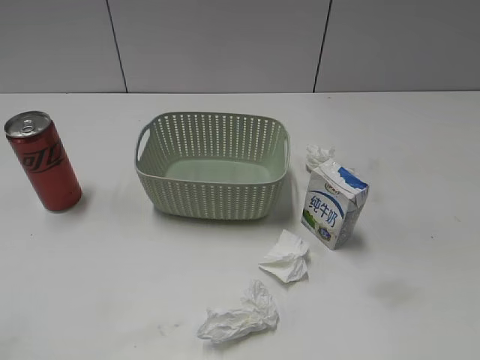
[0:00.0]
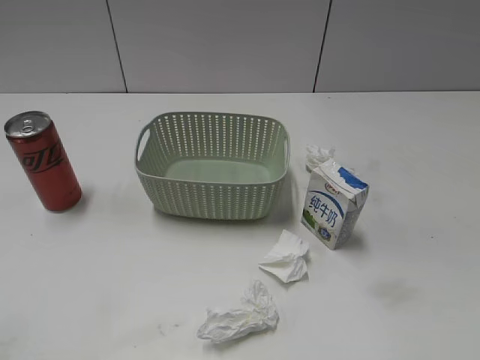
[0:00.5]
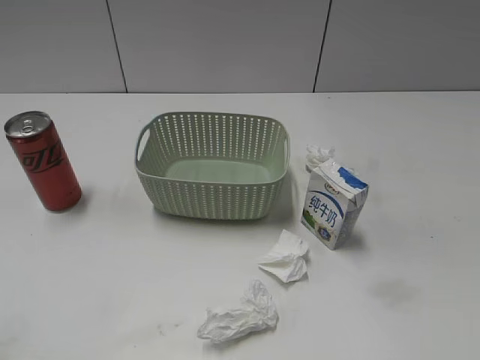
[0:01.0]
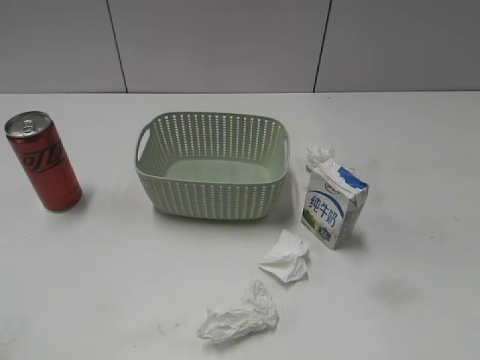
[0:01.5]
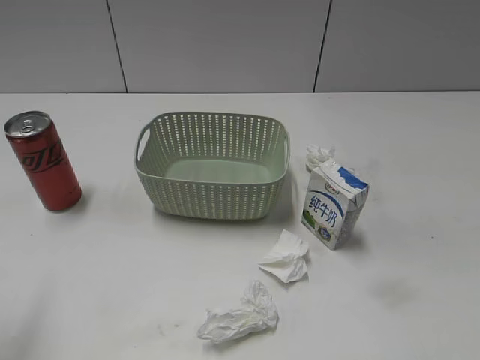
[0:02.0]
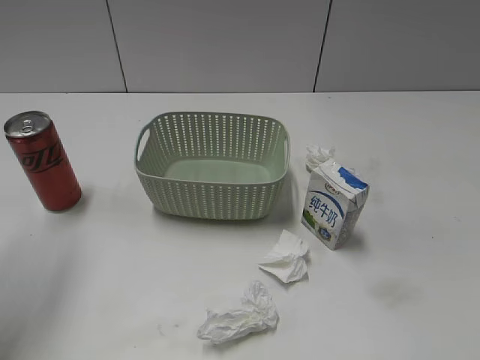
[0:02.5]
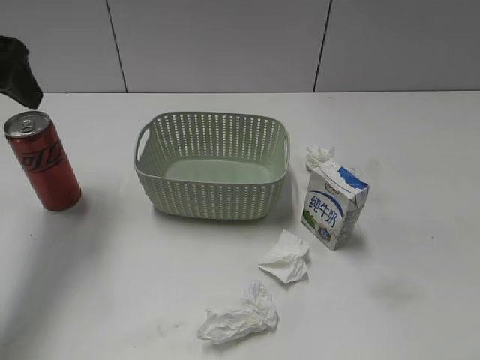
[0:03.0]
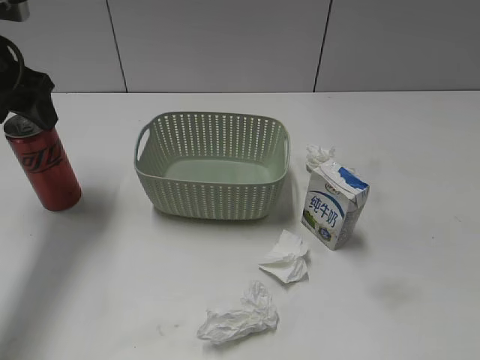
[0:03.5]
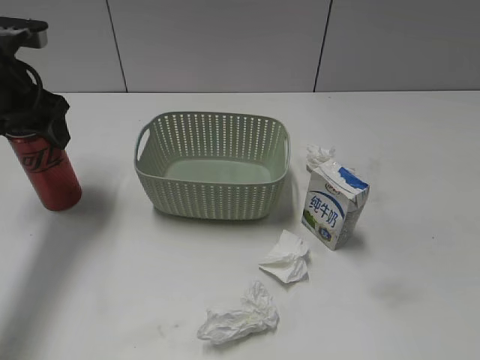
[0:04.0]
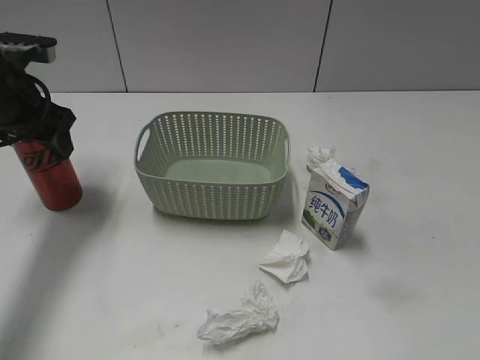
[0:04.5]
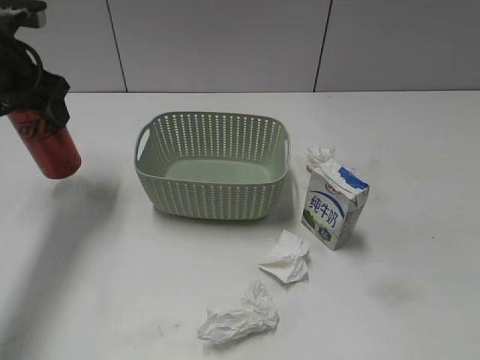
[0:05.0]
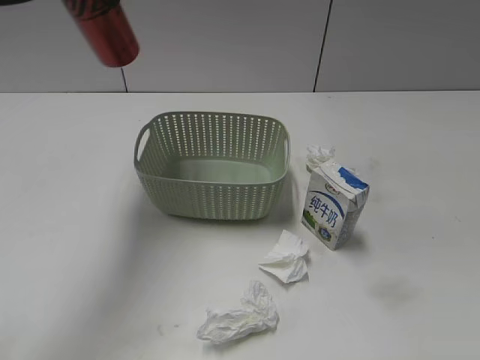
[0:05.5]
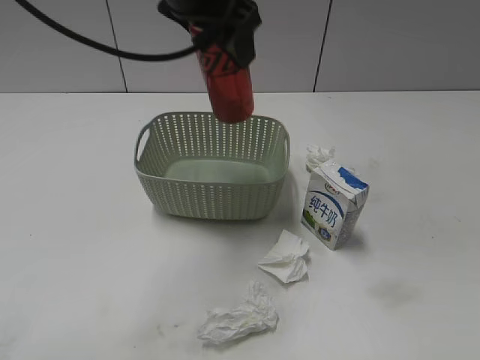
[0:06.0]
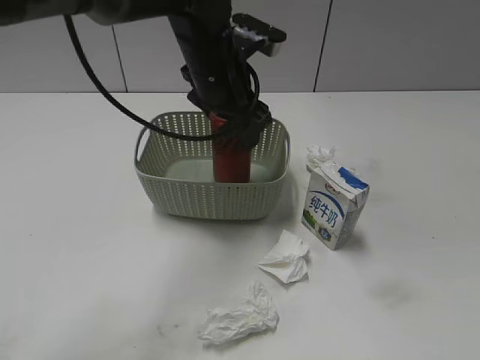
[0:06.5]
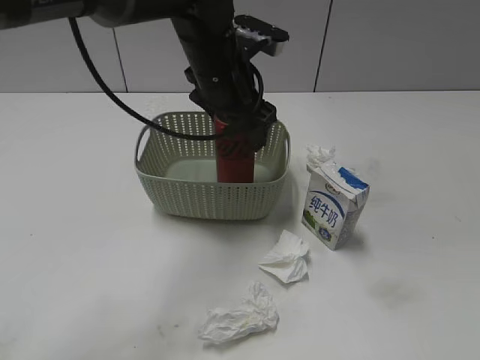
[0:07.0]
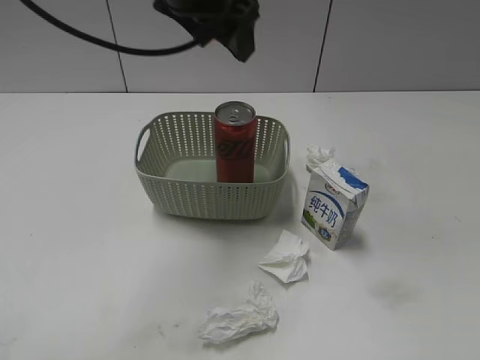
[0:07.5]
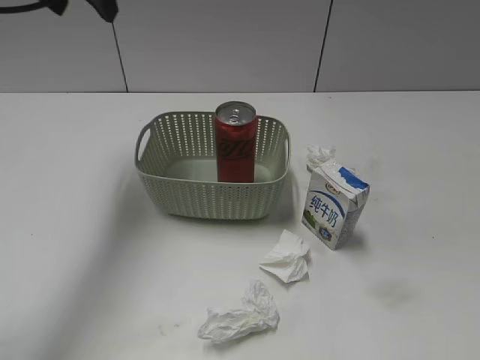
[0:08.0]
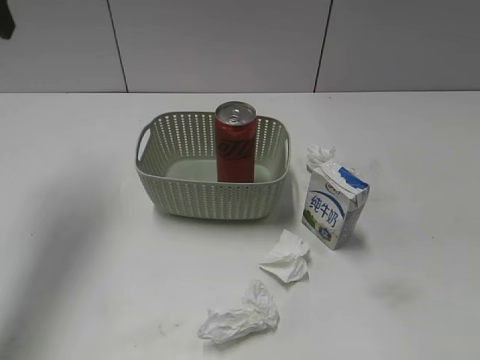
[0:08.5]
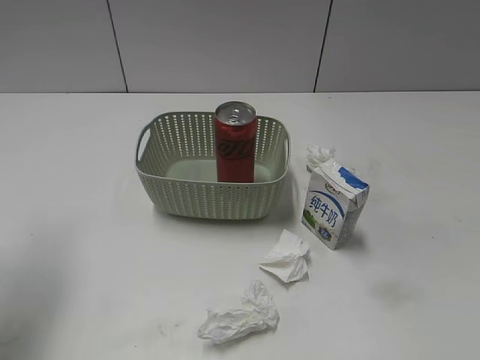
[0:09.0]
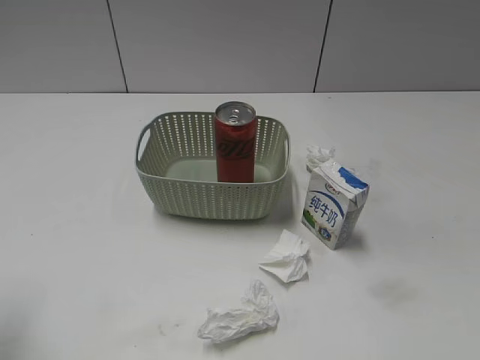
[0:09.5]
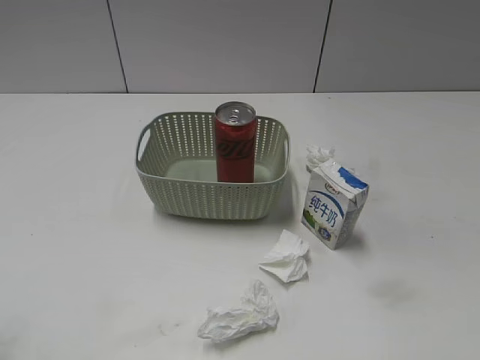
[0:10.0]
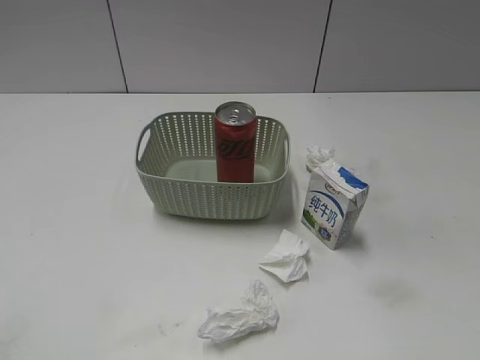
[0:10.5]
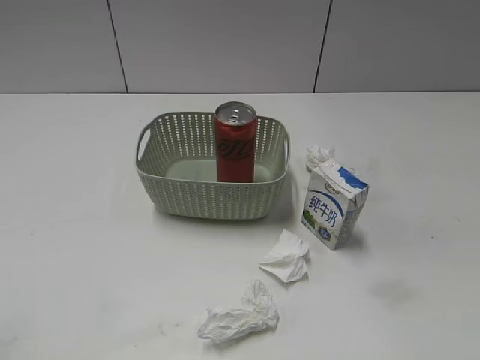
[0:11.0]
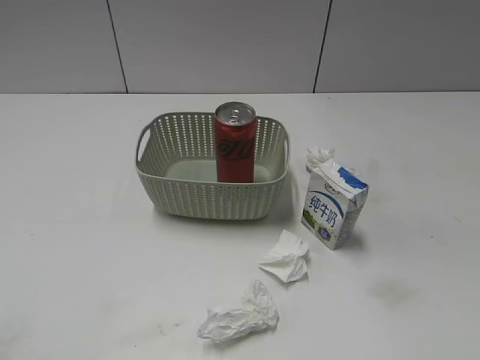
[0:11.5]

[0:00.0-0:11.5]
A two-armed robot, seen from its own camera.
Step, 0:03.0 to 0:04.5: Grasp the cola can with left gripper.
Step, 0:05.0 to 0:07.0: Place the cola can in the basket with left gripper.
0:02.0 to 0:04.0: The left gripper moves forward, roughly 25 cm.
0:04.0 to 0:06.0: The left gripper moves to the right and upward, about 25 cm, and closes up.
0:06.0 to 0:07.5: The left gripper reaches some 10 cm downward, then returns, and opens its fingers.
0:07.5 to 0:09.5: The left gripper goes roughly 35 cm to the left and backward.

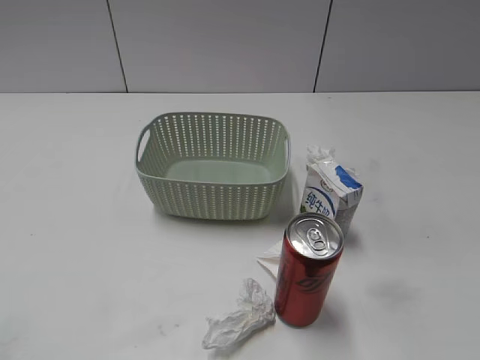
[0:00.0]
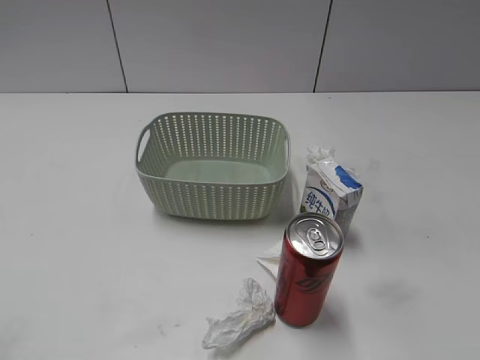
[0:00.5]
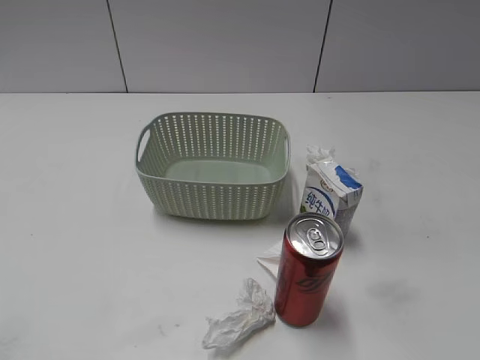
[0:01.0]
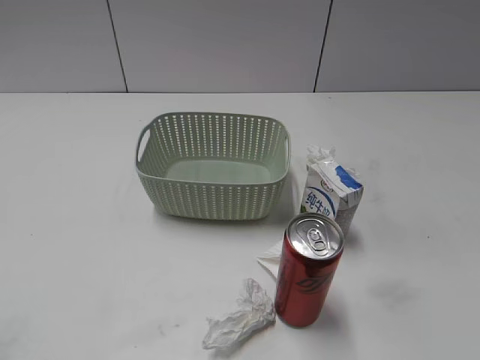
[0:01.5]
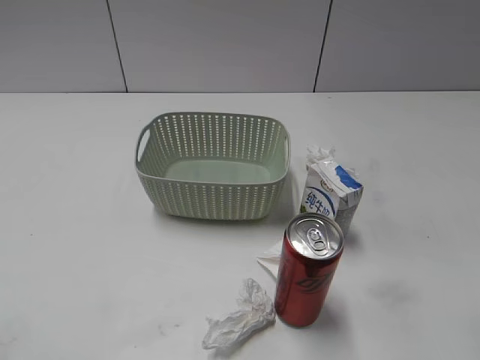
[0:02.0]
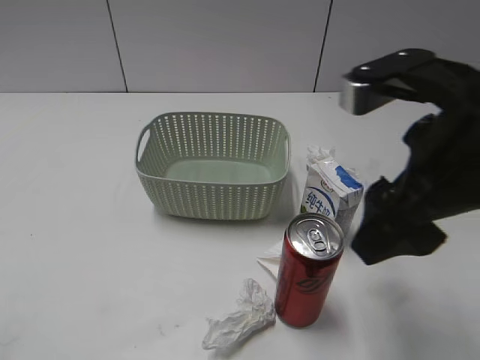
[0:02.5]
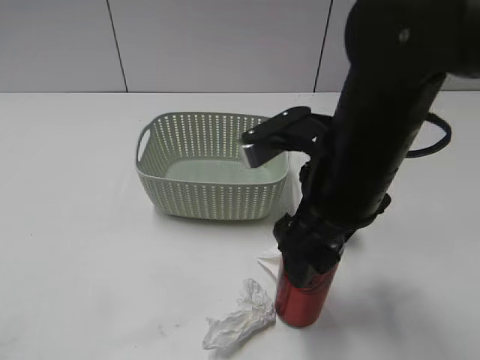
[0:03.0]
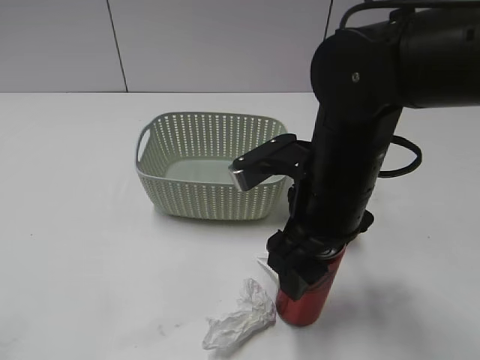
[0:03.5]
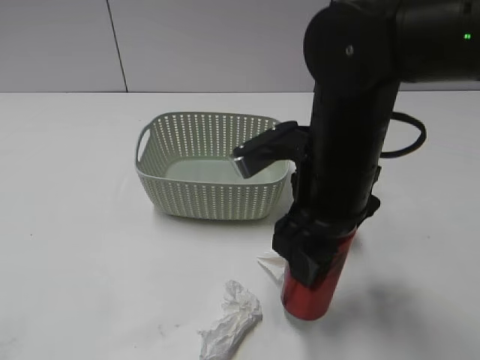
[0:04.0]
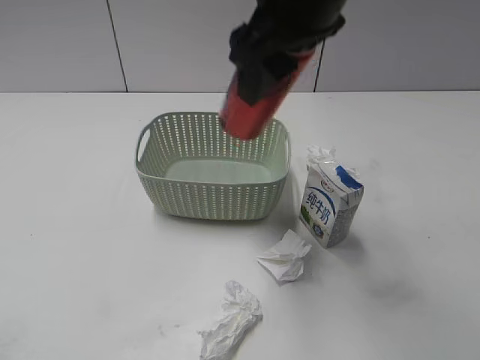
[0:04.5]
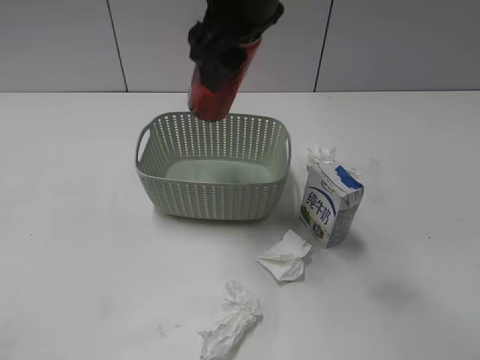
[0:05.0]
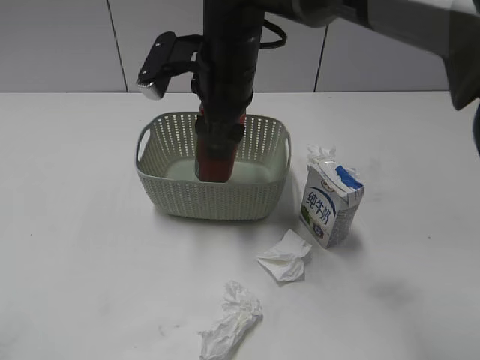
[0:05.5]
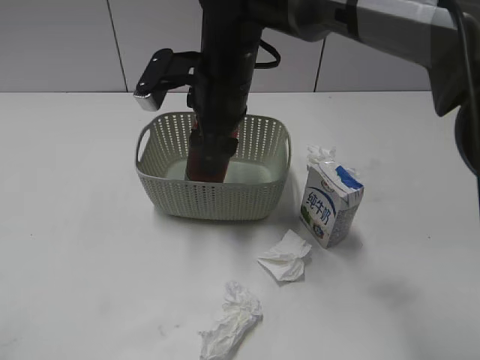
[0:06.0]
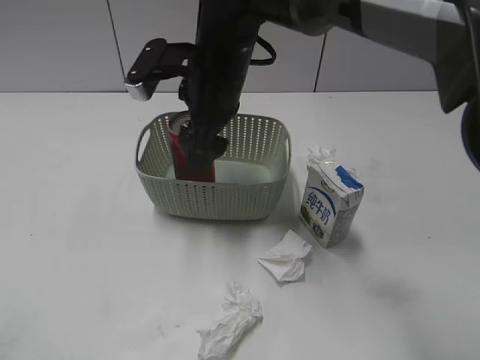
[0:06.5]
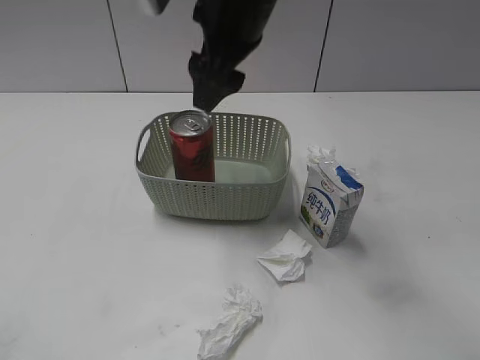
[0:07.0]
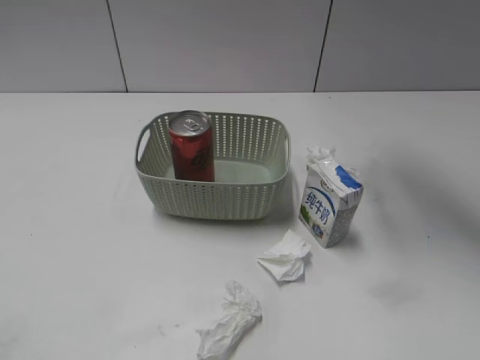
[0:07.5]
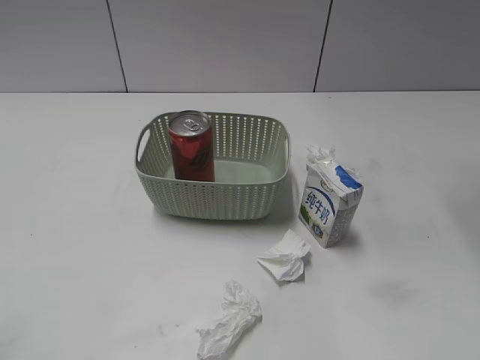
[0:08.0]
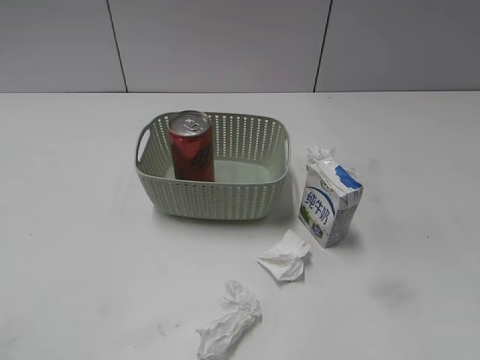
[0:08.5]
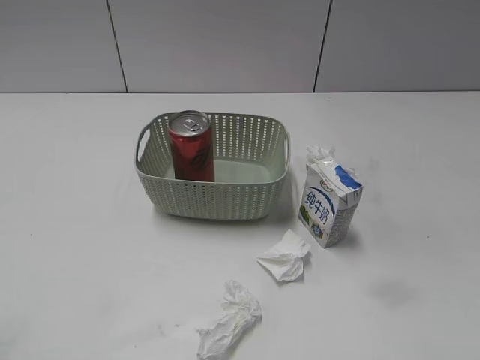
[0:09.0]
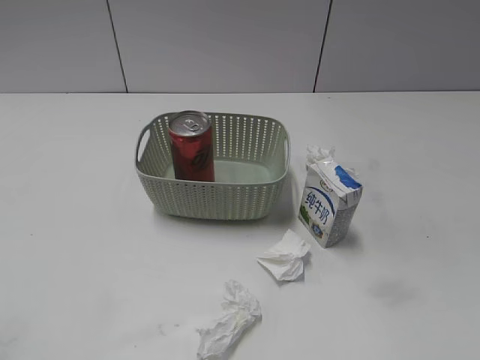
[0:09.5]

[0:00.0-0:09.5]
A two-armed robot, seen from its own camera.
Step, 0:02.5 to 0:03.5: Grasp the cola can with right gripper.
Step, 0:04.0 to 0:07.0: Place the cola can in the basket with right gripper.
0:02.0 to 0:04.0: The right gripper travels to the left, forward and downward by roughly 25 cm, and closes.
0:04.0 to 0:05.5: The right gripper shifts some 15 cm forward and to the left, and reaches some 15 cm upward, then returns.
0:05.5 to 0:07.5: The right gripper heads to the right and upward, covering approximately 25 cm, and opens, then closes again.
0:07.5 to 0:09.5: The right gripper goes roughly 35 cm backward.

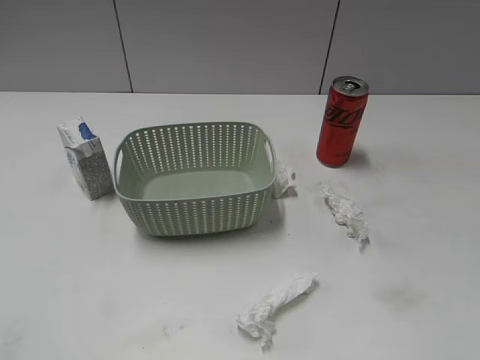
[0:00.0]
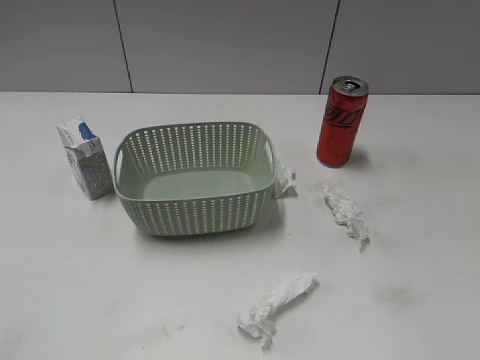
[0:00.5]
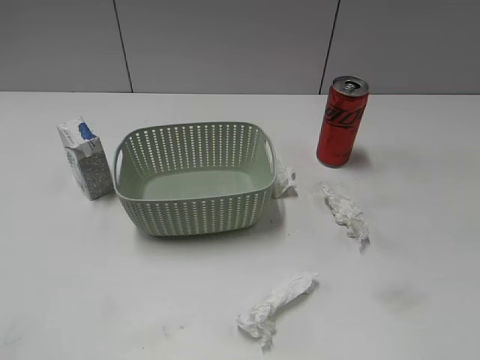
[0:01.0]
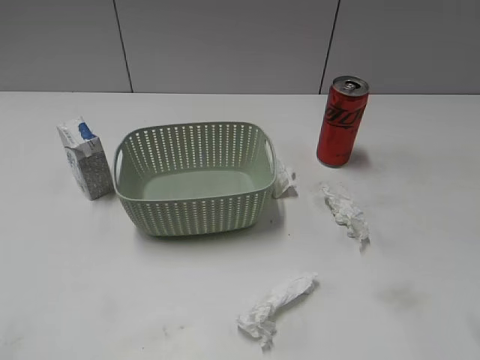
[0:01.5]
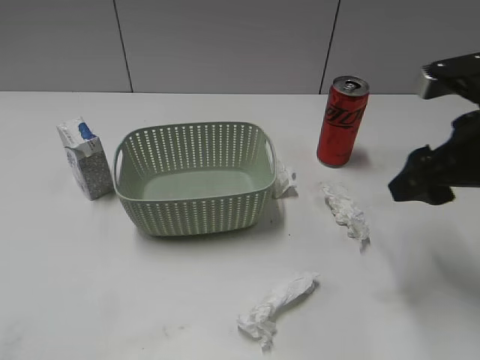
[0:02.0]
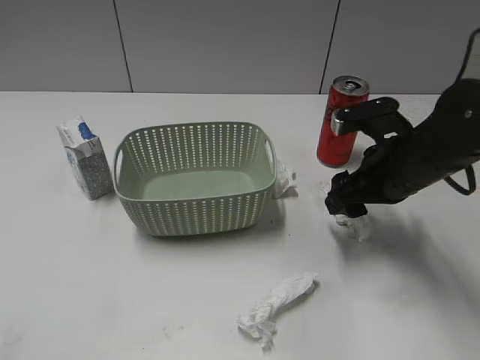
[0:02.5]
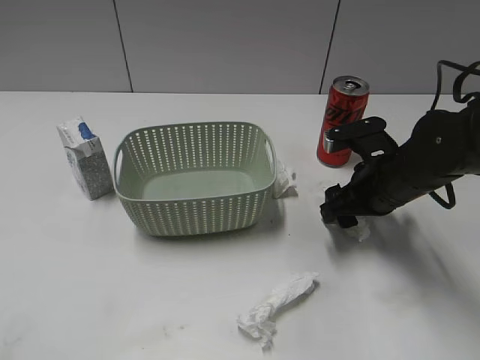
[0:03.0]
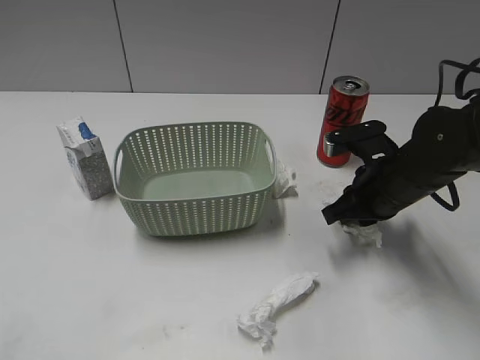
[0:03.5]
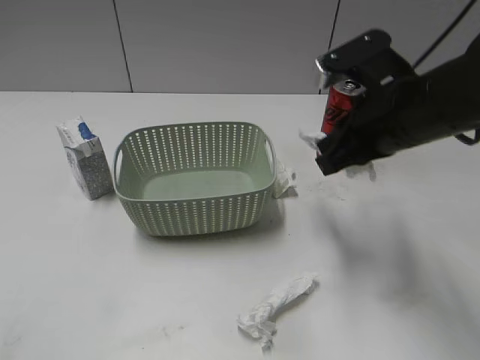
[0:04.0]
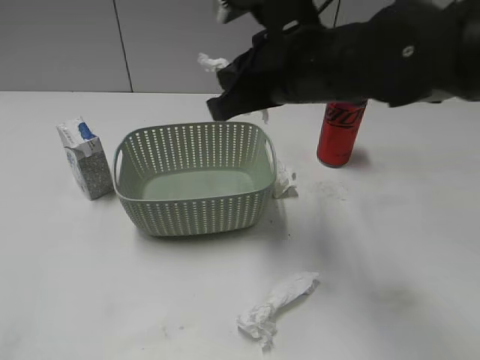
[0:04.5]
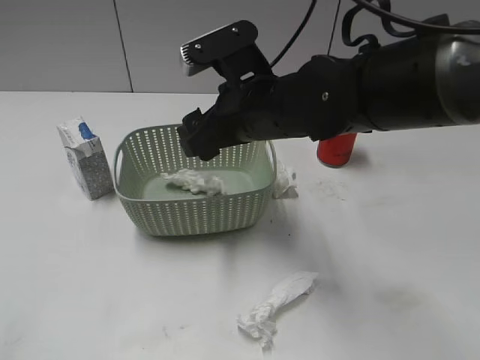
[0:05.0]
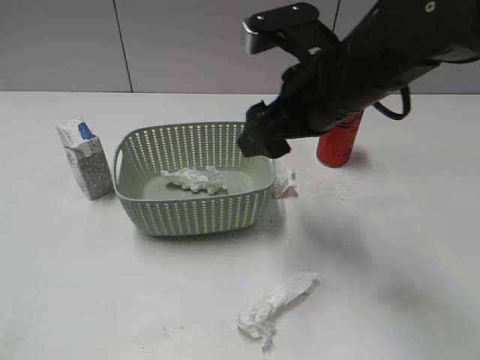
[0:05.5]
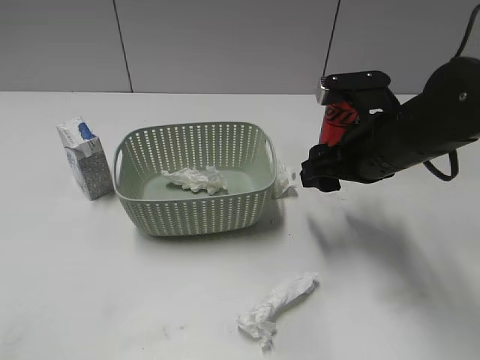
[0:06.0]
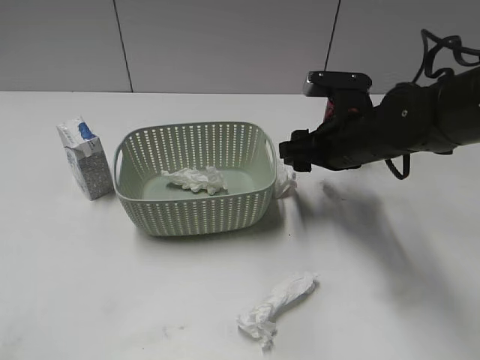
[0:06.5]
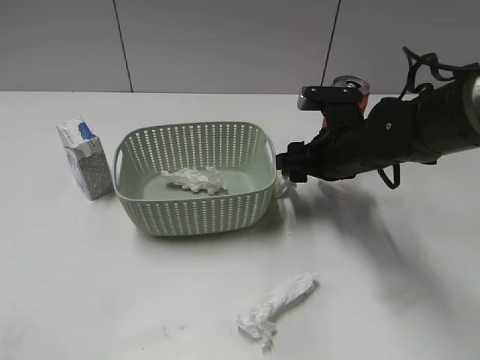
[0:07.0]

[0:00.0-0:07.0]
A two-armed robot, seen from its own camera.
Step, 0:01.5 to 0:03.5: Grasp the waste paper with right gripper.
Step, 0:04.0 to 0:05.0: Place the waste paper in the basket with right gripper.
0:02.0 to 0:03.5: The right gripper shifts about 15 cm downward and forward, and closes up.
0:03.5 to 0:05.0: The right gripper shifts roughly 20 cm to the left and upward, and opens.
0:05.0 to 0:07.0: The right gripper heads to the right and downward, covering some 15 cm.
